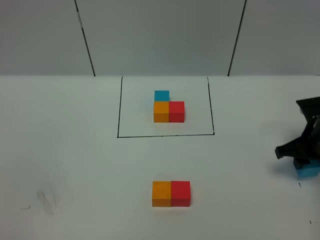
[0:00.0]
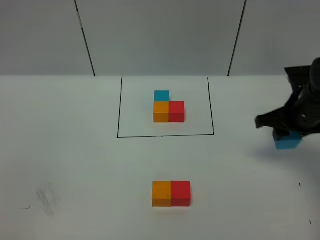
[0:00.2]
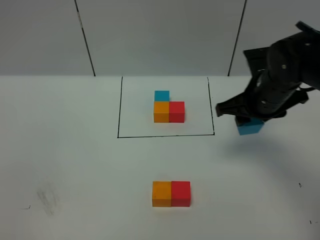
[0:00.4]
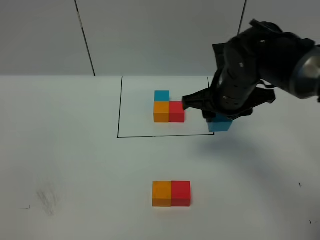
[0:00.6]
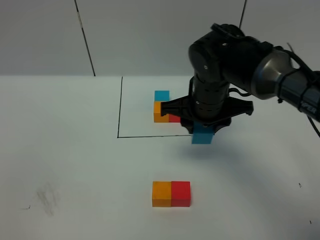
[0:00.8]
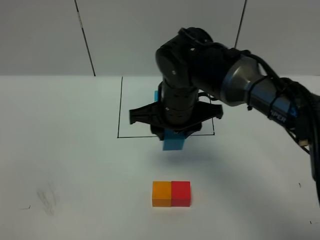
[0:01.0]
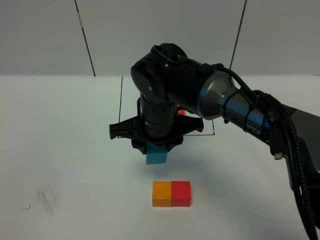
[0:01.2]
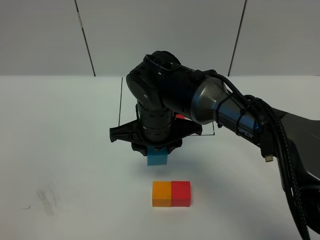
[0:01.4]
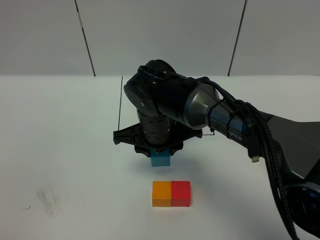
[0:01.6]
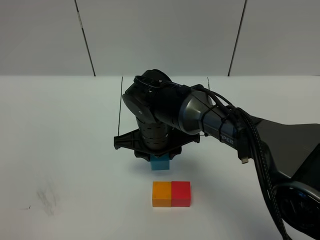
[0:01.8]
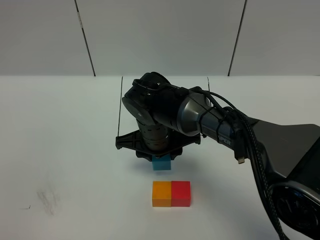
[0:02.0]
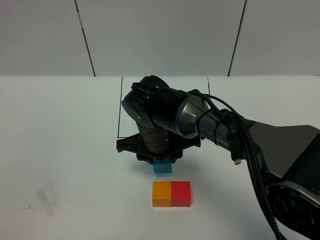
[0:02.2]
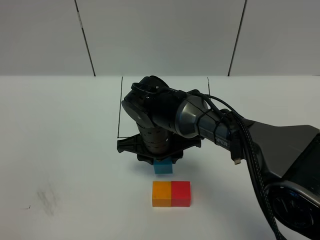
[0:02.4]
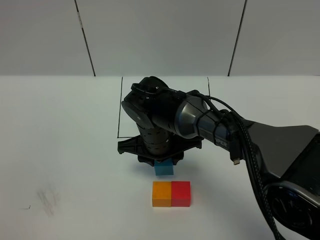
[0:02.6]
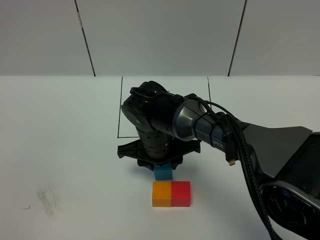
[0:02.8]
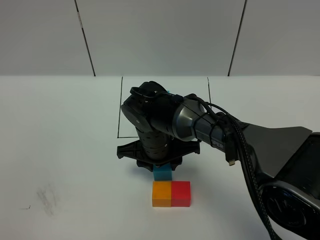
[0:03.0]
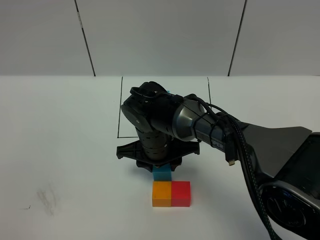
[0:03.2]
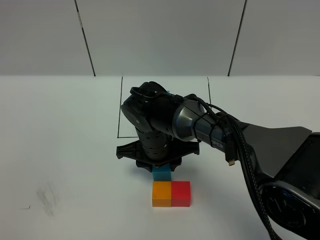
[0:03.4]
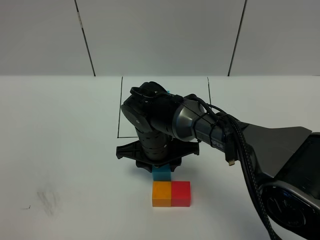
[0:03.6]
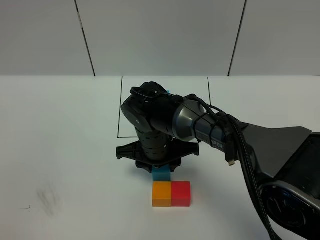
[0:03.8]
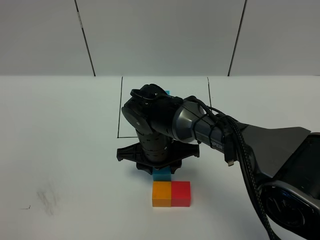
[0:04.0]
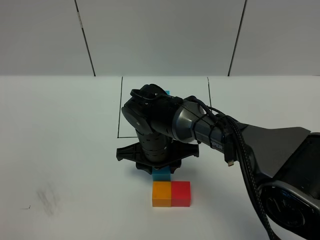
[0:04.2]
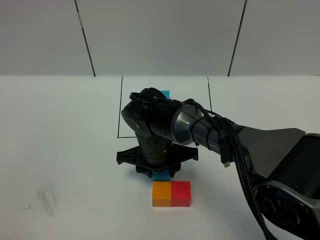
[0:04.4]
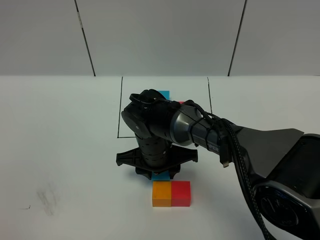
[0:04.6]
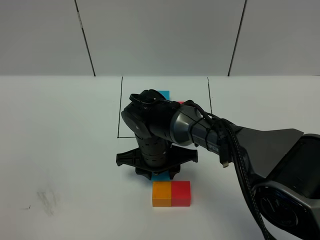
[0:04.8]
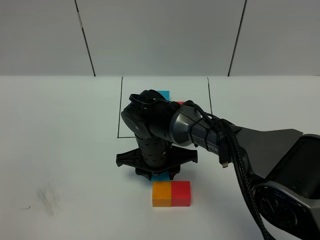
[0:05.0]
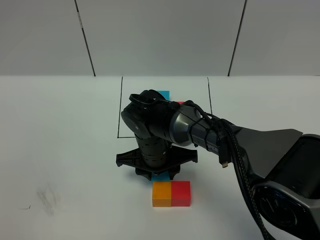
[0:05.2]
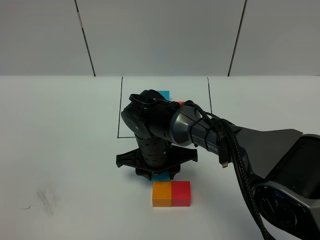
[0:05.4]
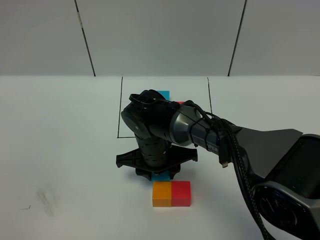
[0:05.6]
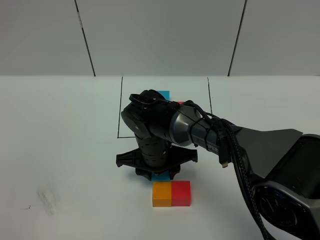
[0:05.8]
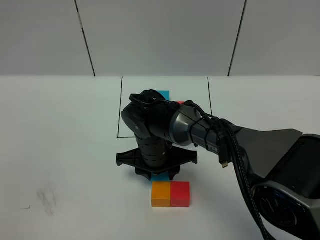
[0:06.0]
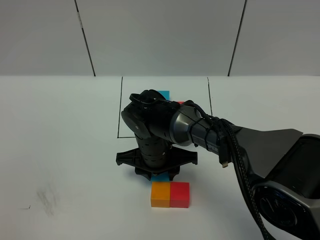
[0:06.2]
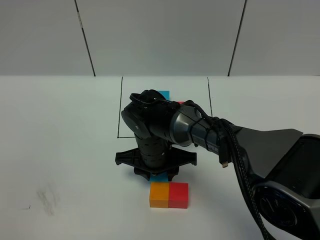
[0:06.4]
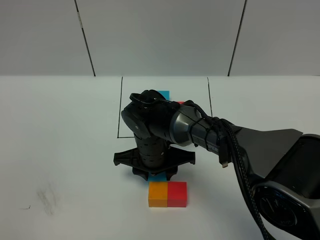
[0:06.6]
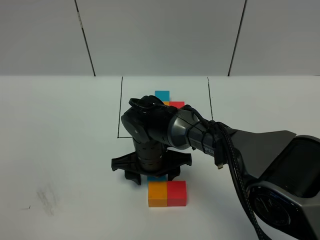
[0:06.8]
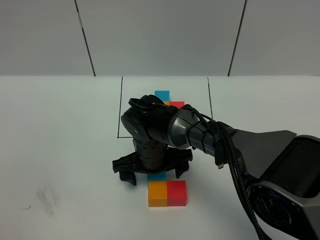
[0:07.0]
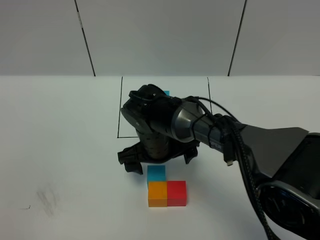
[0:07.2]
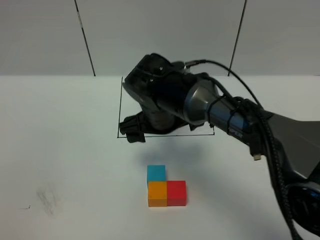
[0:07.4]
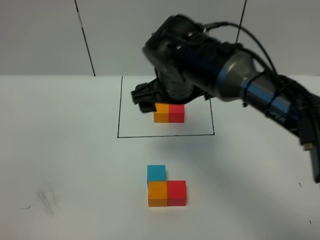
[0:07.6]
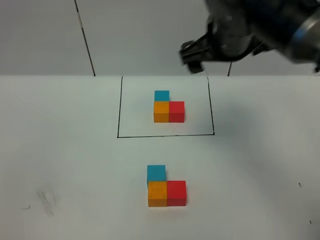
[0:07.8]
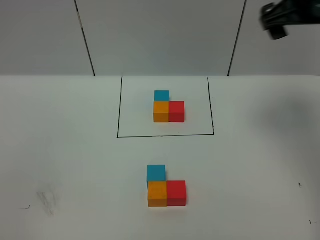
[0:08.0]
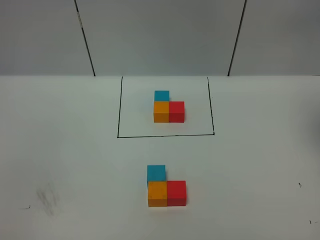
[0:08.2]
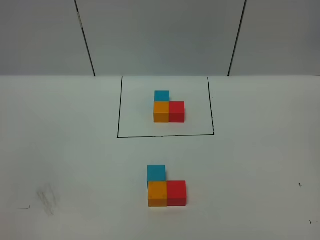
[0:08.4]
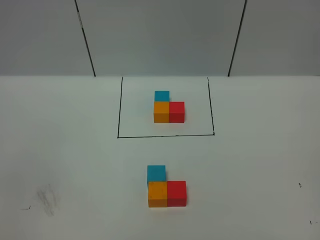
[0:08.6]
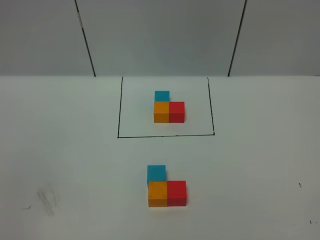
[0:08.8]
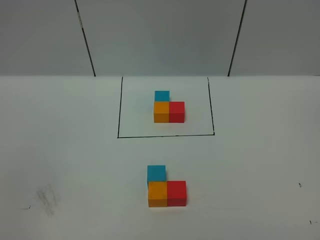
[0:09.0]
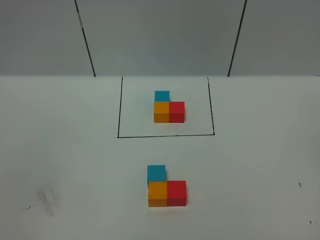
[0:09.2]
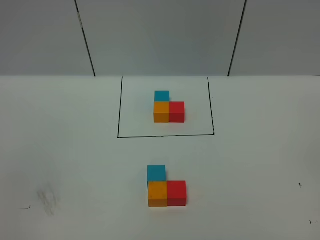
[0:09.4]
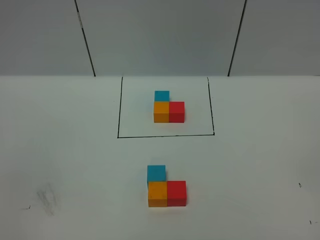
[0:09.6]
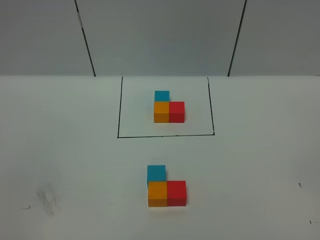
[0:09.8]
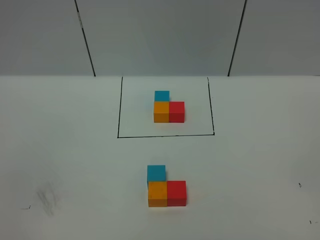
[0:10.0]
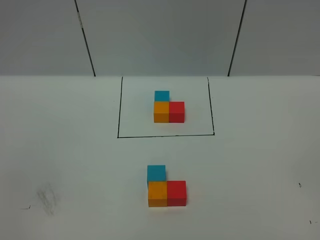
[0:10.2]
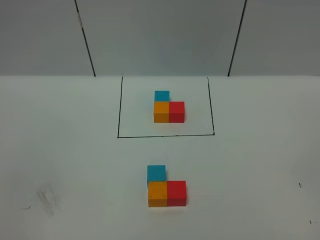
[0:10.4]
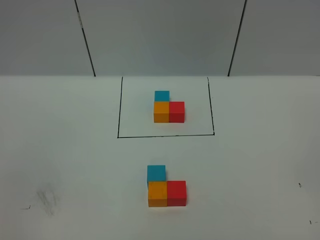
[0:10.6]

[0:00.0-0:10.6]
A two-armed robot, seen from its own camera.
Task of the whole recording: According to the building block template in front, assemble the scattered blocks together.
Step, 0:00.0 to 0:07.2: Put the blue cube on the behind of the orange cube.
0:00.0 to 0:01.6: The right gripper shifts approximately 30 cm to the left.
0:01.6 to 0:03.0: The grippers stay close to where they were, moving slightly.
0:03.0 to 0:04.6: The grippers stay close to where they were, moving slightly.
0:04.6 to 0:06.0: Both grippers stay about where they are.
0:06.0 to 0:07.6: The right gripper is displaced upward by roughly 15 cm, and opens.
0:07.6 to 0:09.0: The right gripper shifts approximately 50 cm backward and to the right.
